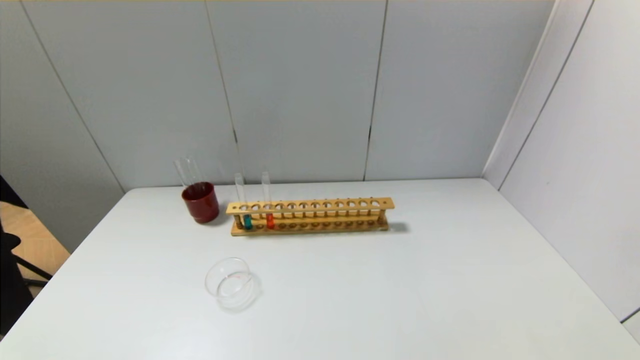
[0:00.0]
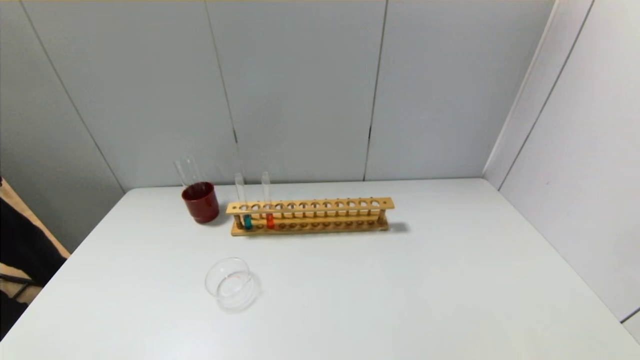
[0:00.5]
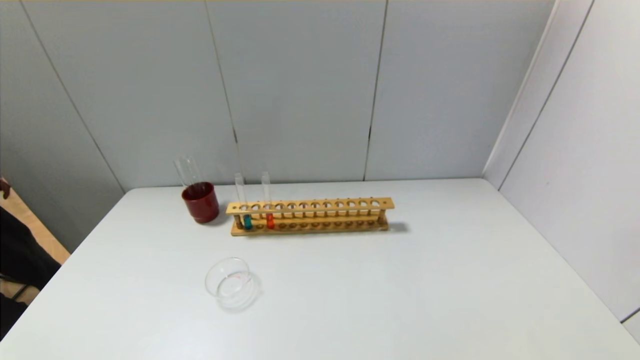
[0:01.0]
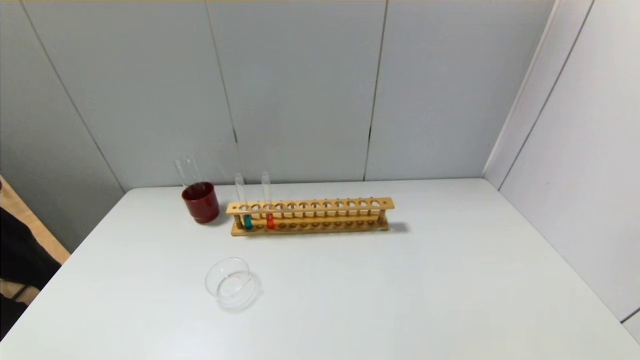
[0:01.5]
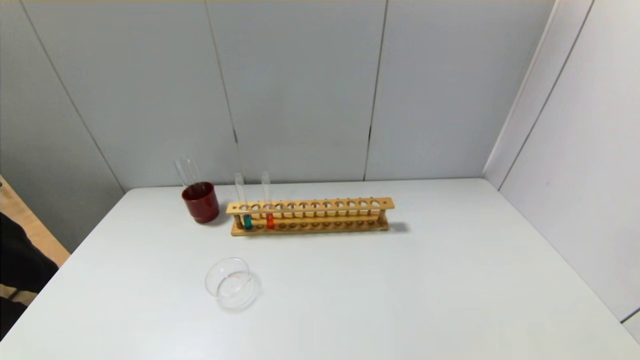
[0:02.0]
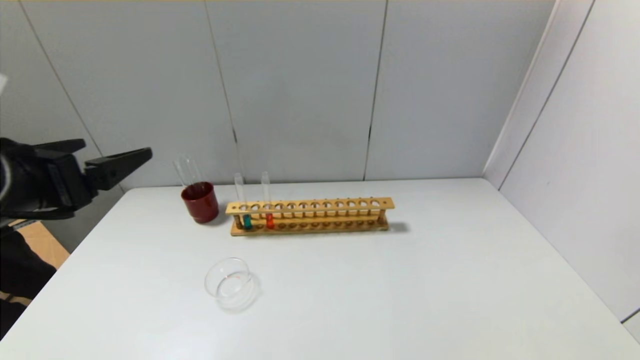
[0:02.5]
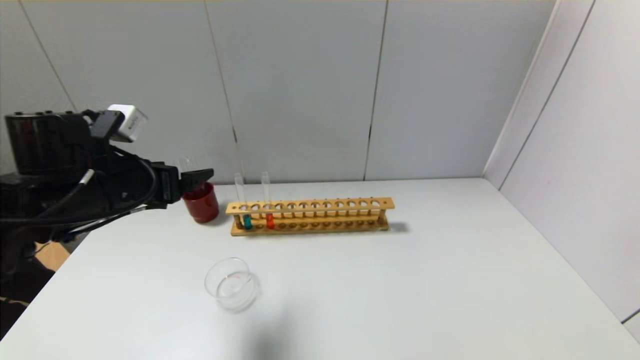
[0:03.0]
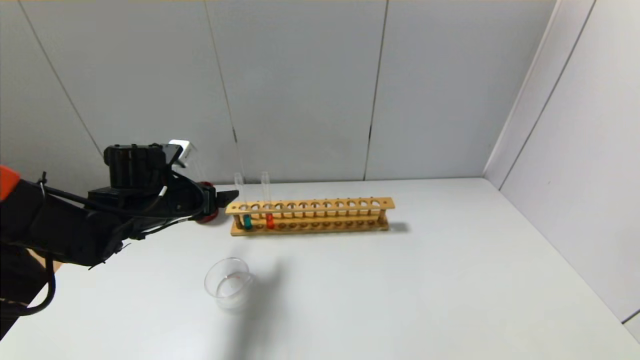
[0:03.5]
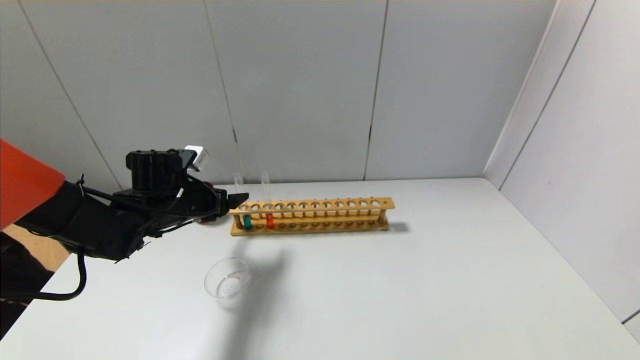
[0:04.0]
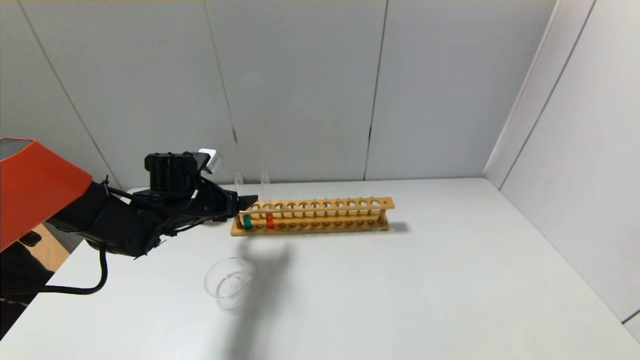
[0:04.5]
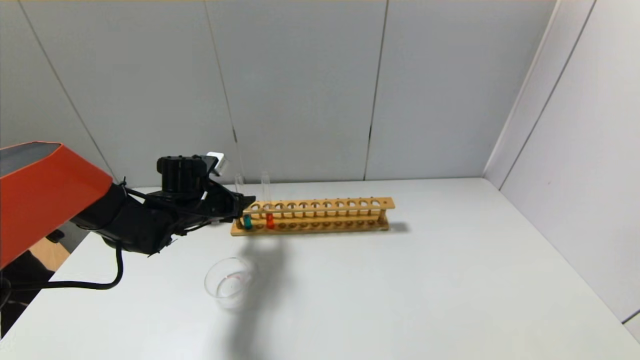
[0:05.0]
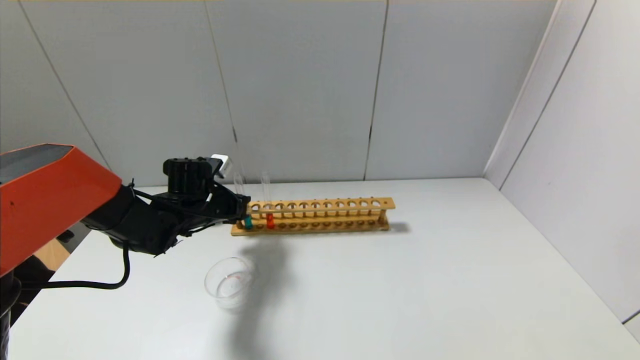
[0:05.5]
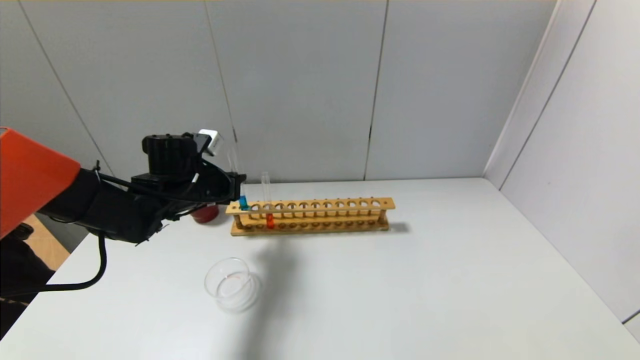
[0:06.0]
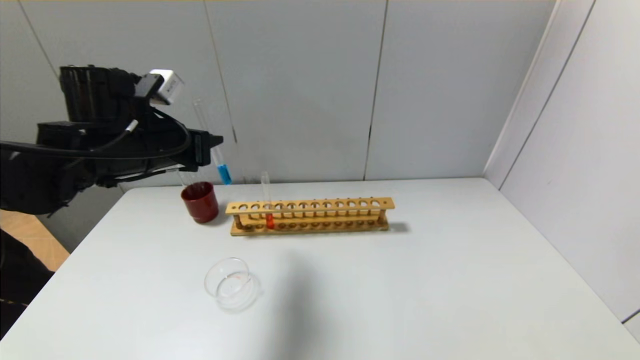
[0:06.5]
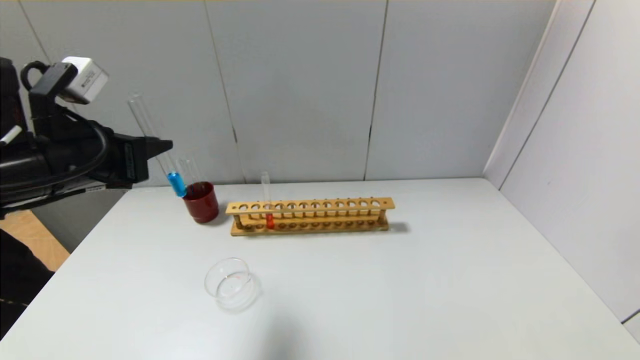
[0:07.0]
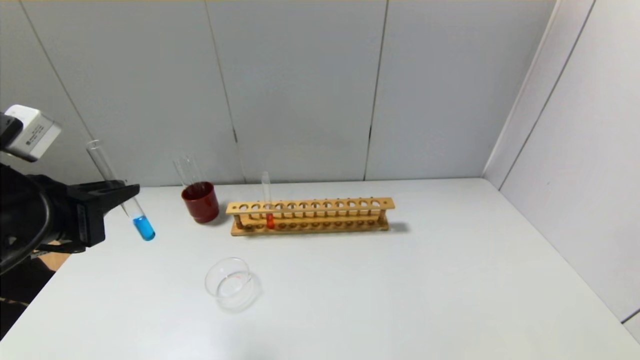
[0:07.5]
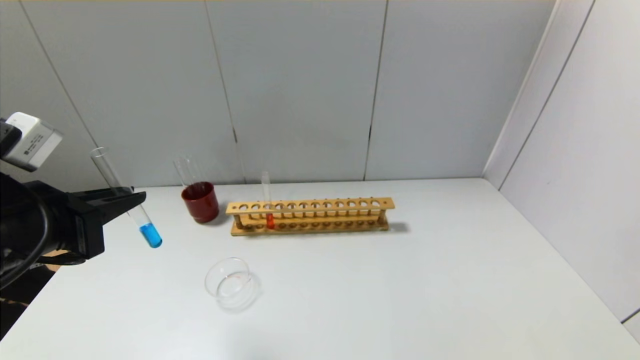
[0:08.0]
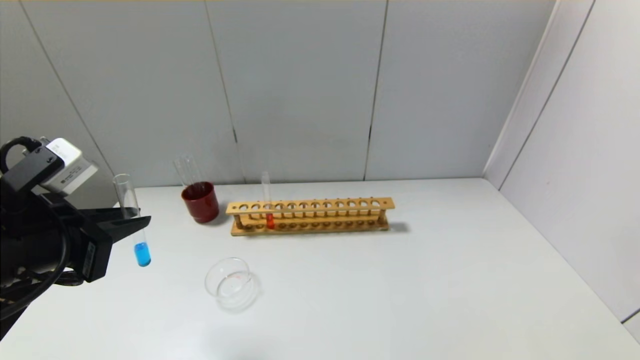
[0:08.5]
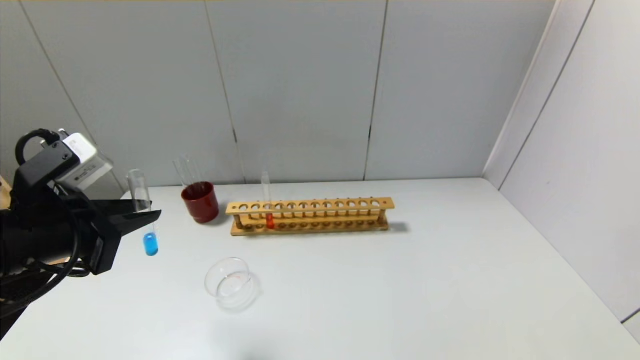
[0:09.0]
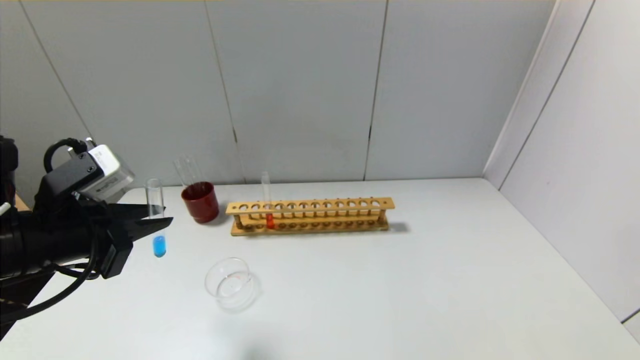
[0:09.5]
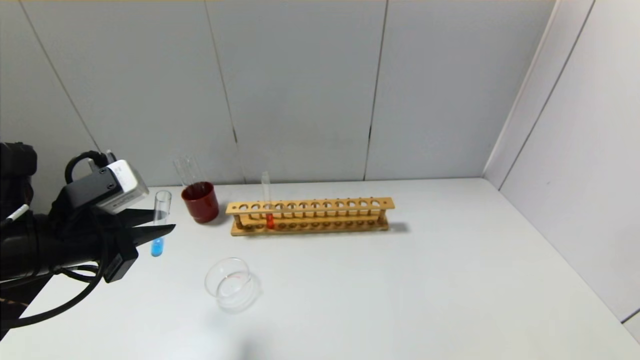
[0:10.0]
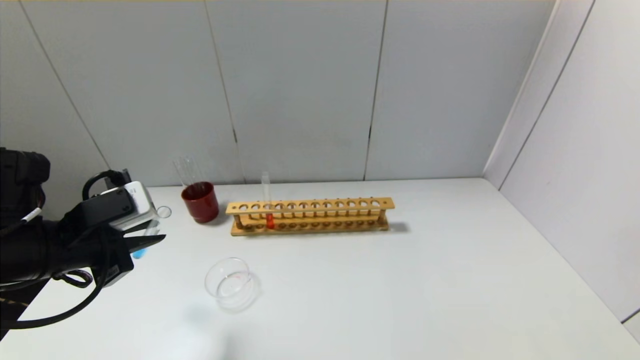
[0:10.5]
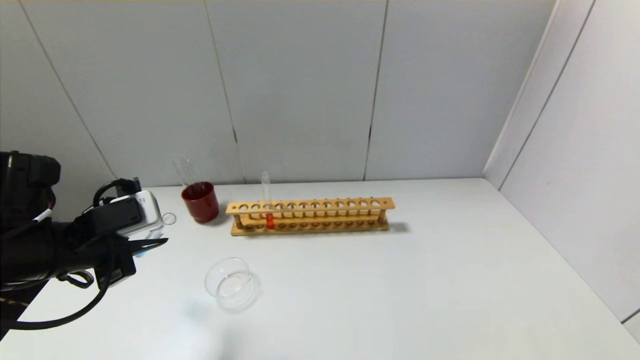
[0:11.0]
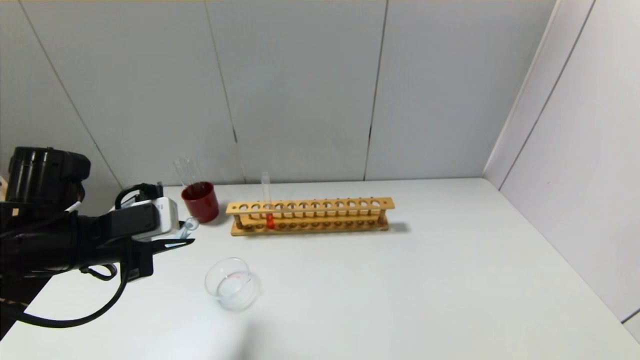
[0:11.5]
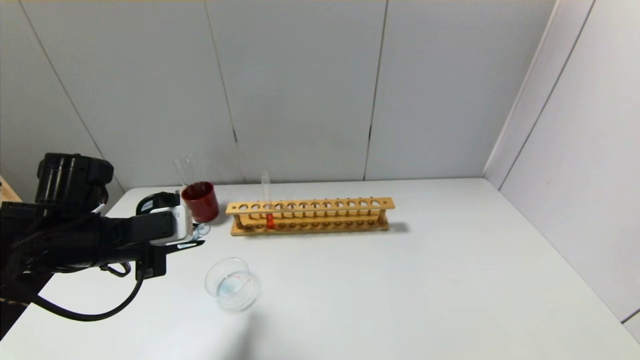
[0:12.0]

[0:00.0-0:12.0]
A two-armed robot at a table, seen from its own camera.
Step, 0:00.0 to 0:05.5: Grasp the blue reagent with the left gripper.
0:00.0 to 0:02.0: The left gripper shifts about 15 cm upward.
0:02.0 to 0:04.0: The left gripper is displaced forward by approximately 35 cm.
0:04.0 to 0:06.0: The left gripper closes its fingers.
0:06.0 to 0:08.0: The left gripper shifts about 25 cm backward and upward.
0:10.0 to 0:12.0: The left gripper shifts by some 5 cm.

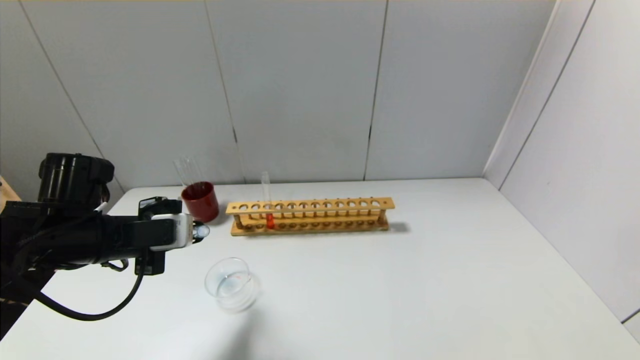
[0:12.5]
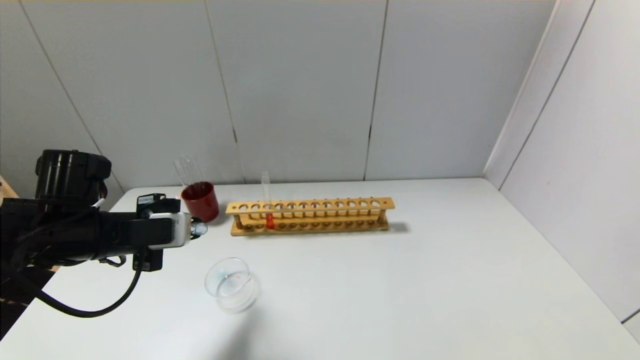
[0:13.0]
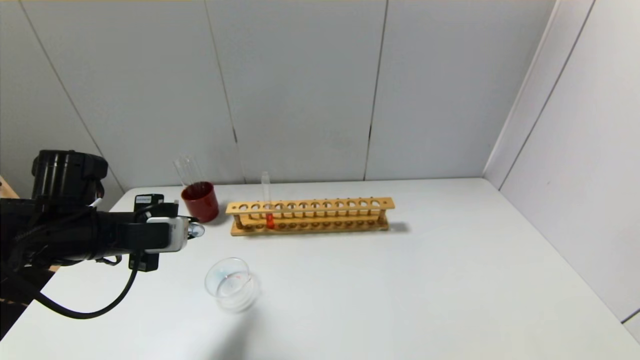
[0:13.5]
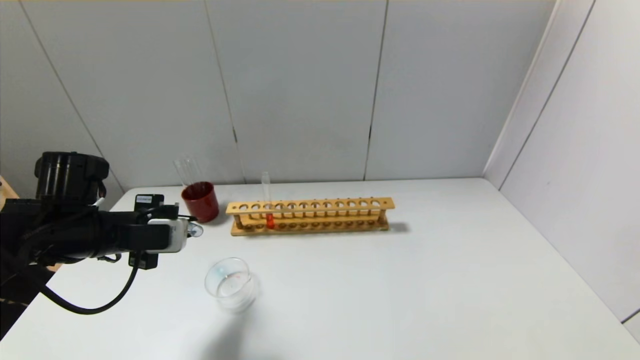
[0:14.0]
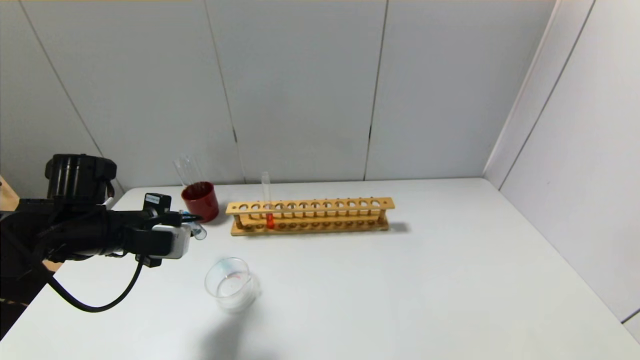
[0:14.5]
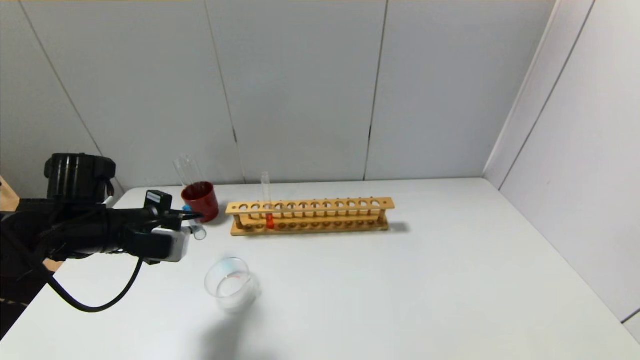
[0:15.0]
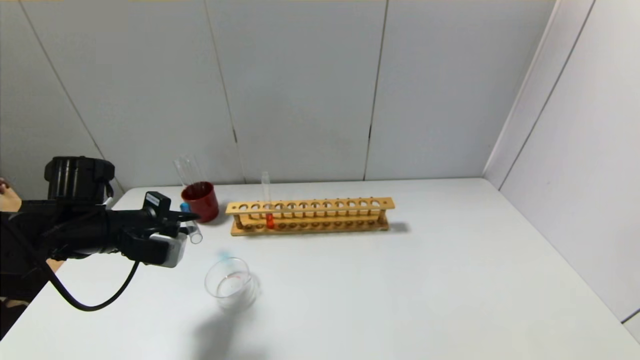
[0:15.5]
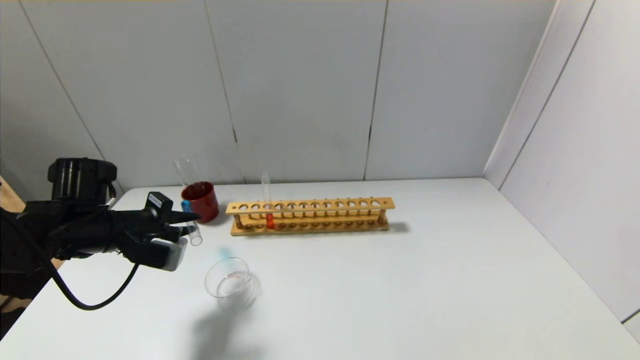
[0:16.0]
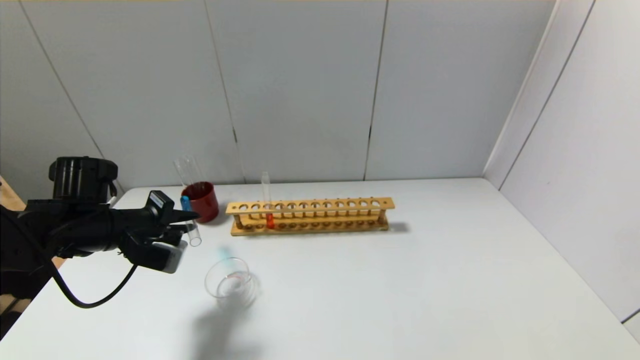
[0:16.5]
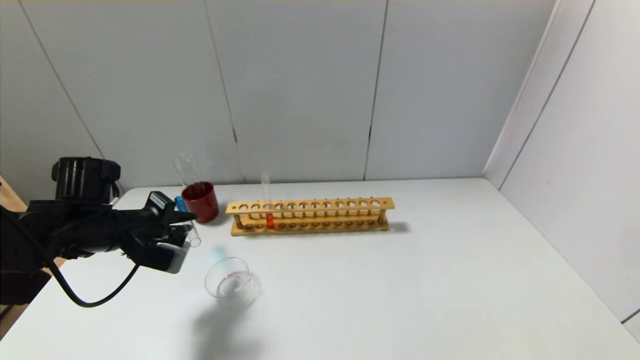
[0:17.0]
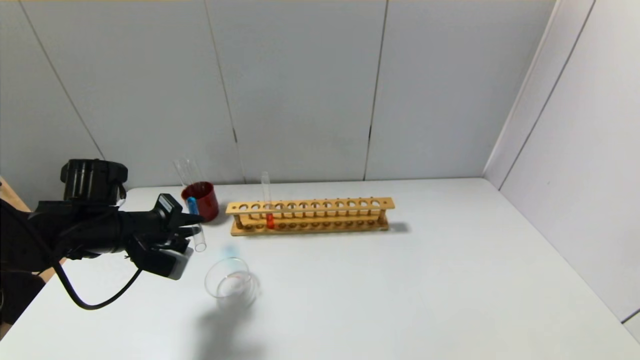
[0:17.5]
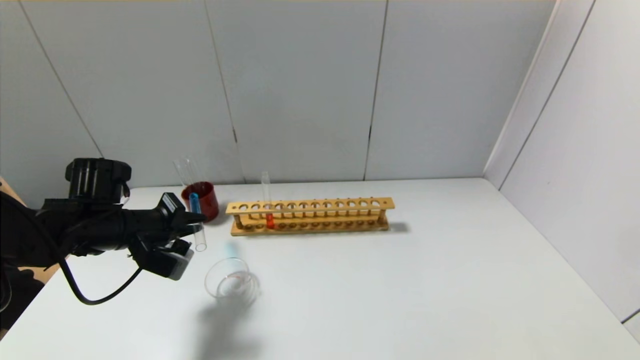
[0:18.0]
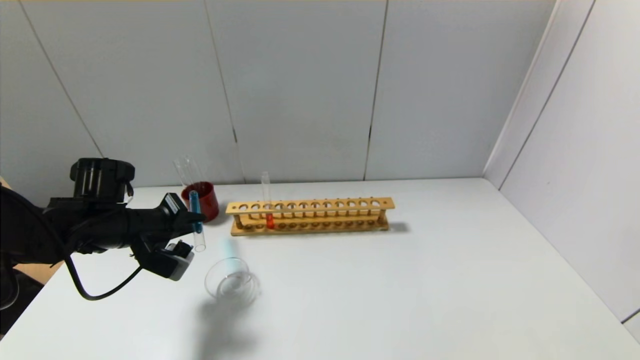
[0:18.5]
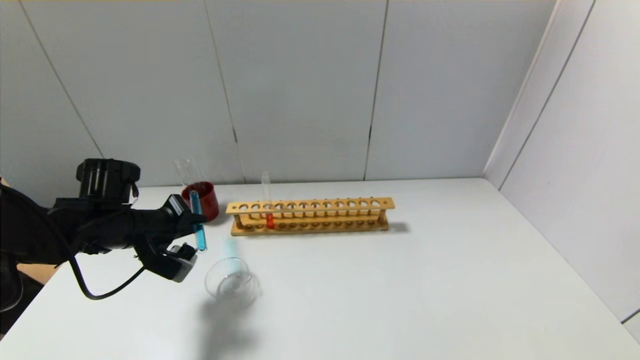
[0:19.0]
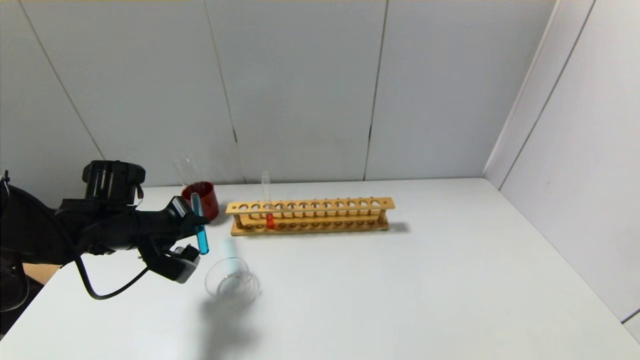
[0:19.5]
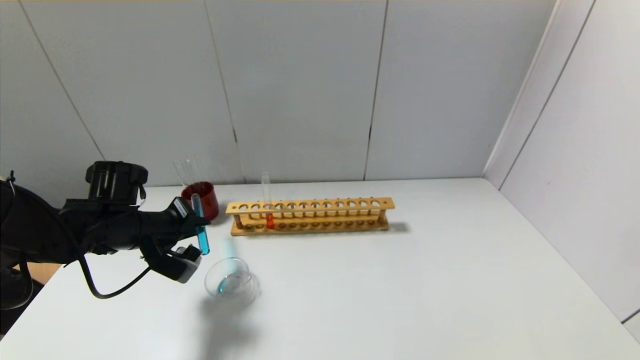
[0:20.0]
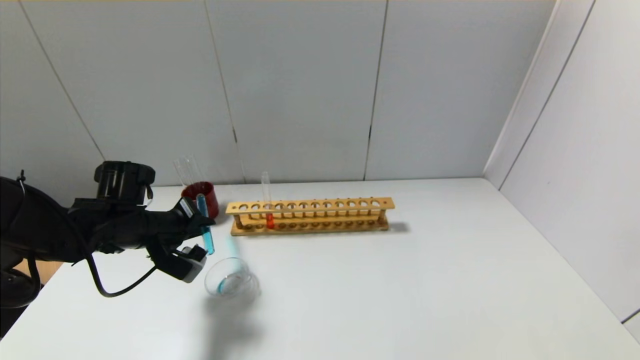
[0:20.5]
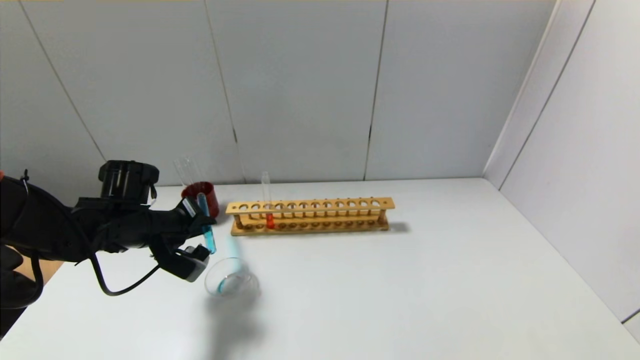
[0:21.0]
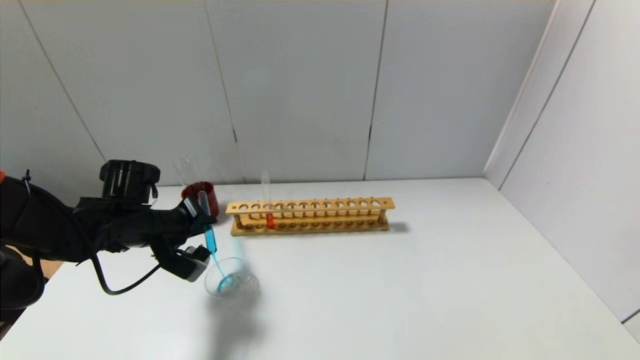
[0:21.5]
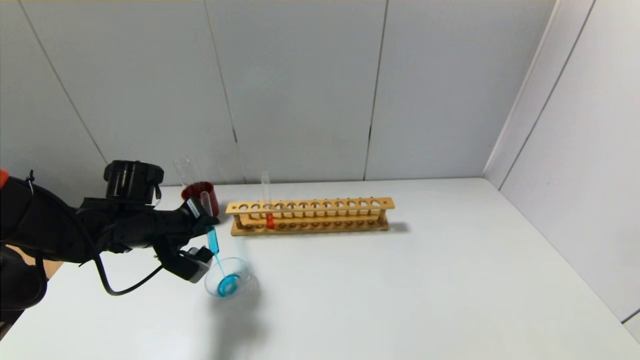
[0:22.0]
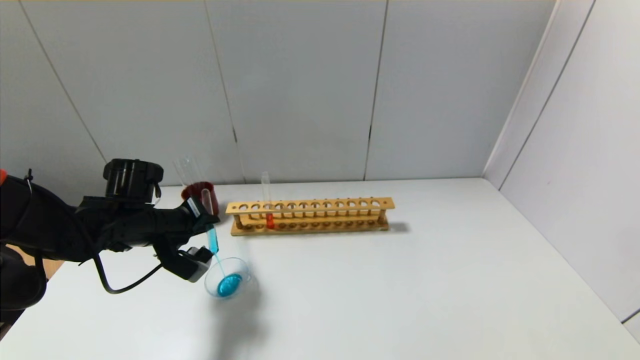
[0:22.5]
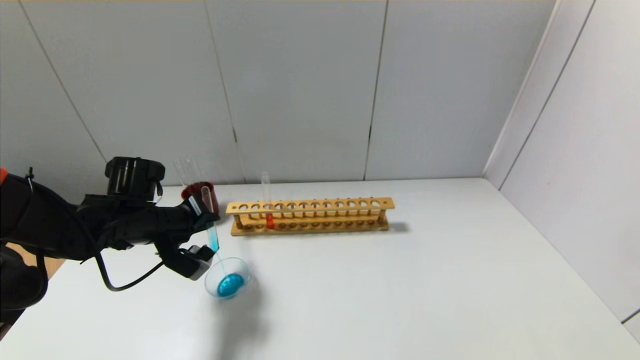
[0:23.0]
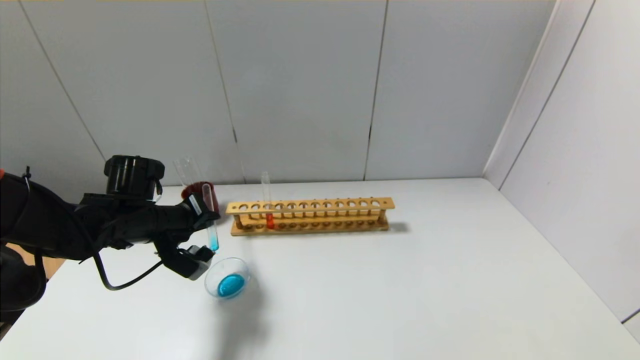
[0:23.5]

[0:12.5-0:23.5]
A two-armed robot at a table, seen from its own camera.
0:12.5 to 0:14.5: The grippers move only a little.
0:14.5 to 0:16.0: The grippers make only small movements.
0:16.0 to 0:18.0: The grippers make only small movements.
0:18.0 to 0:23.5: There are only small adjustments of the grippers.
